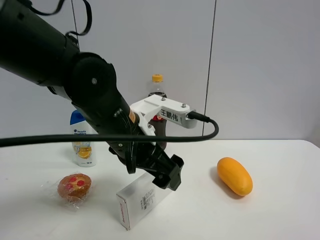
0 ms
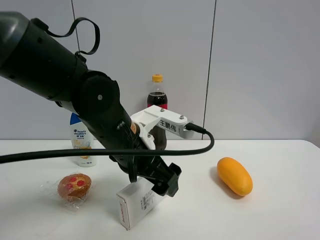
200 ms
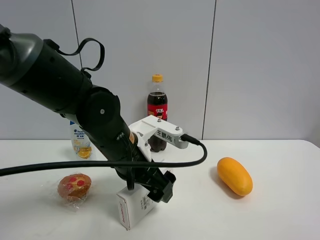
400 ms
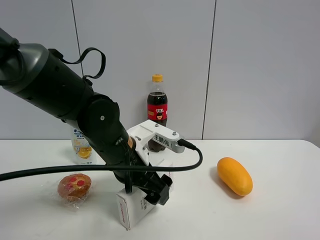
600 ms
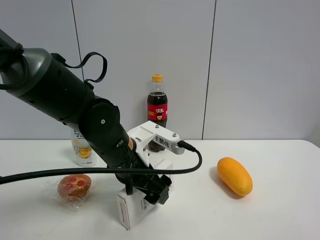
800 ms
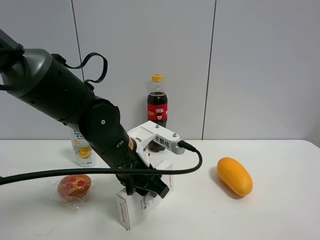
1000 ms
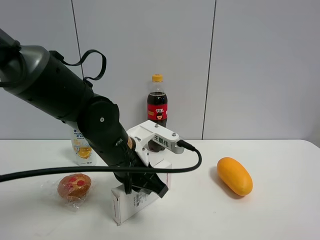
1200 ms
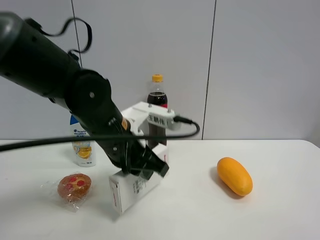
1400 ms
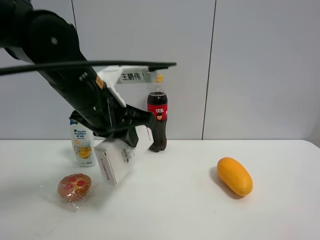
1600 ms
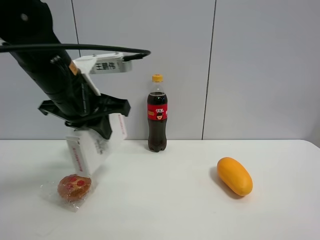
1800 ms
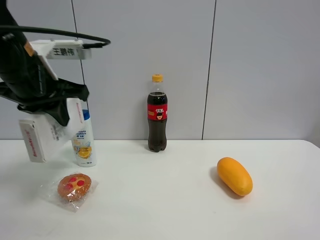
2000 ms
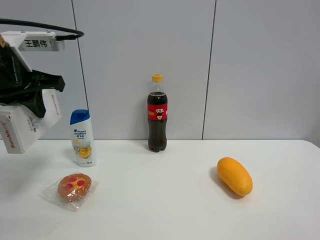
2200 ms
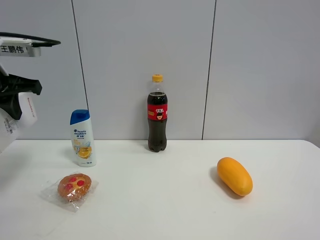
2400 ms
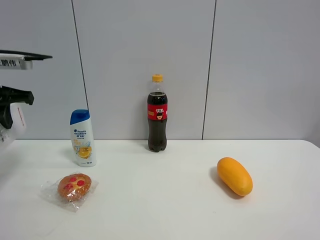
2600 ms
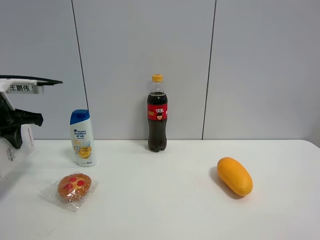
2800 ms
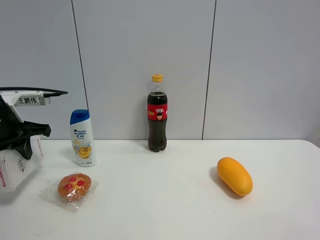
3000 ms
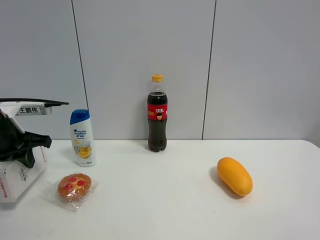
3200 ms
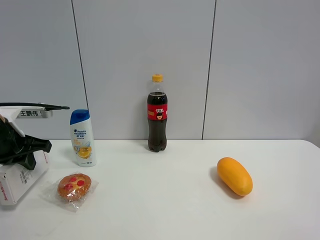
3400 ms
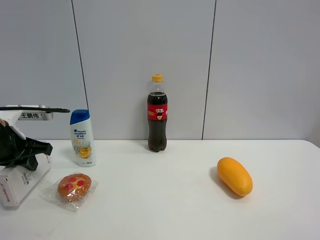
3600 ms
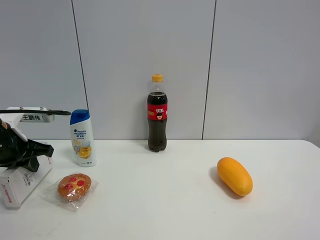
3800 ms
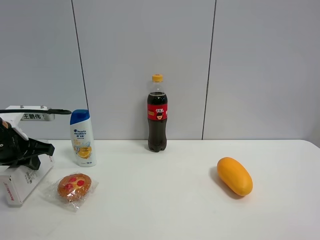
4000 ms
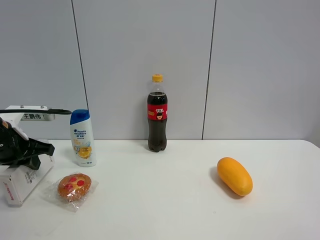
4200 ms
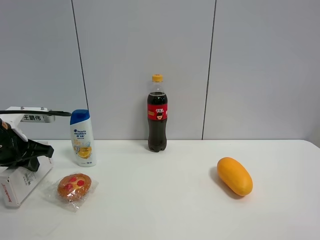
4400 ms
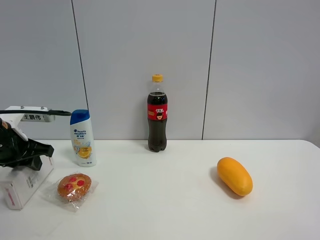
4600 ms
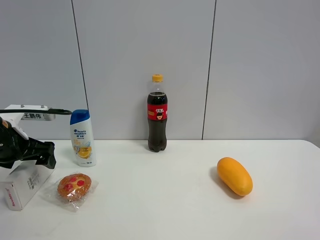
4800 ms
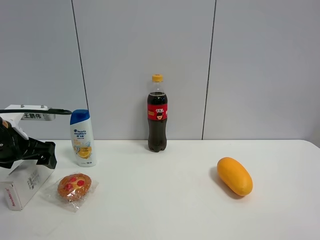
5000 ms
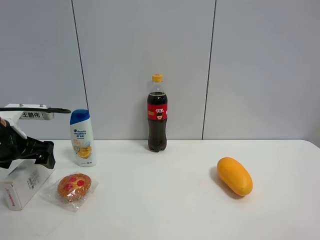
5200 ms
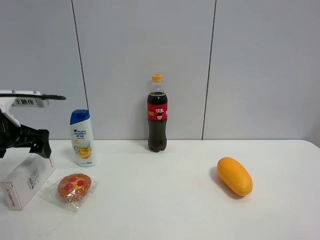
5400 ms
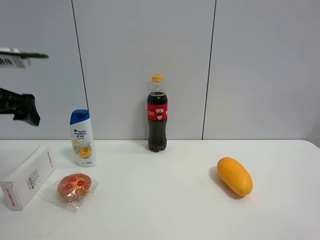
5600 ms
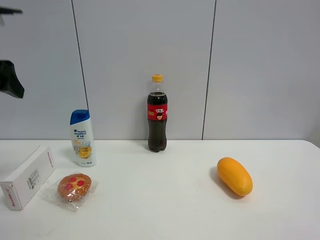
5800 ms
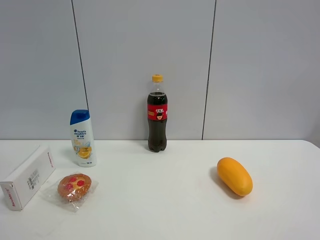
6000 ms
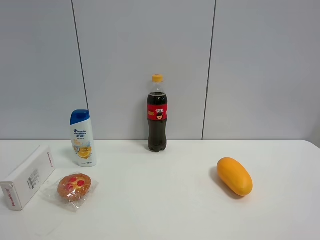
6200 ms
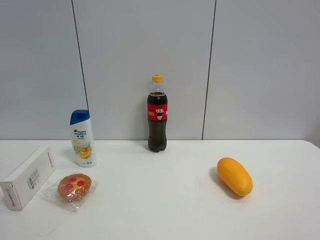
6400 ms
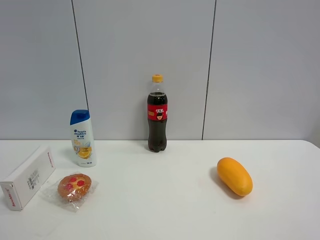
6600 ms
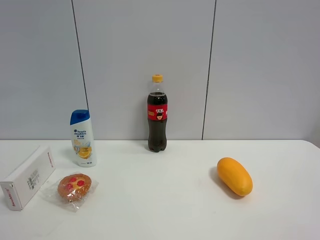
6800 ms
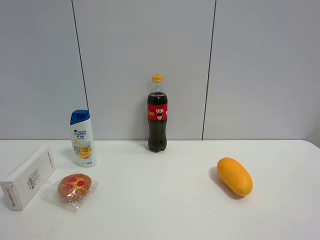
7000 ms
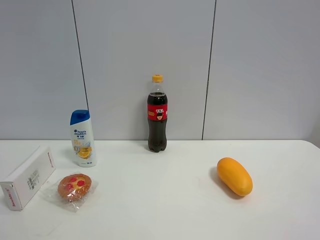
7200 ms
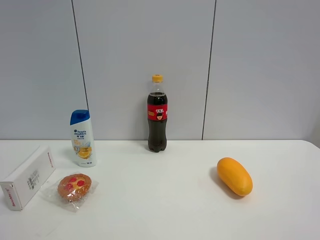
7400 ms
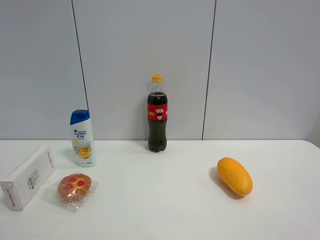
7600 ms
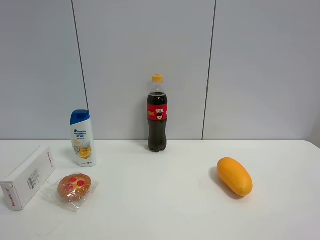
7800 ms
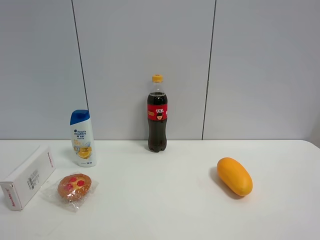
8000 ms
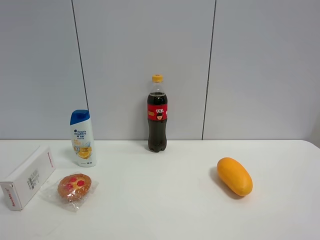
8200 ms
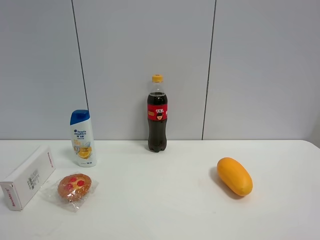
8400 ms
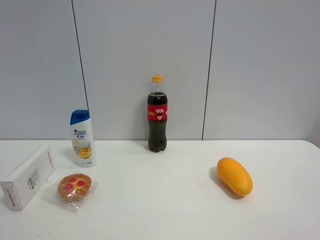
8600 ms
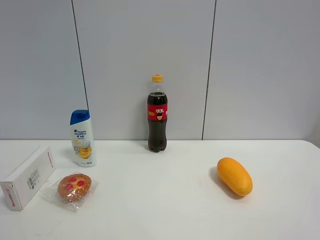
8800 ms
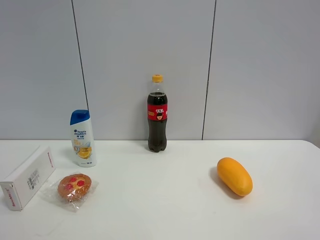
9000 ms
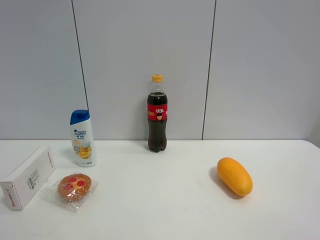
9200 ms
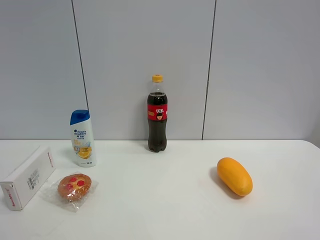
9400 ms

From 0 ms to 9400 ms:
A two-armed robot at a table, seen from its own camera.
Task of the whole recording: the gripper move the object.
Step, from 1200 ms to 4600 ms: Place the USB box on the table with the left gripper.
From 0 ms to 1600 ms: The left gripper heads upward and to the left, covering approximately 10 cm, and closes up.
From 1600 ms to 3200 ms: The left gripper goes roughly 20 cm to the left.
From 3200 ms to 4800 ms: The left gripper opens.
From 4800 ms to 6200 ms: The left gripper heads upward and backward, covering about 30 cm.

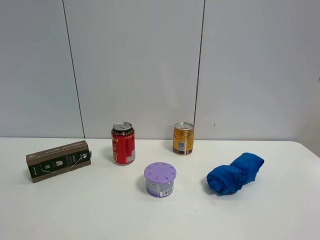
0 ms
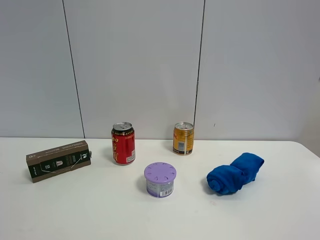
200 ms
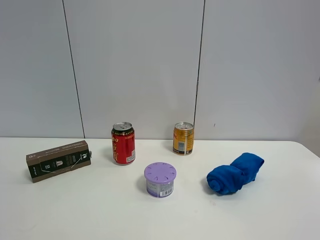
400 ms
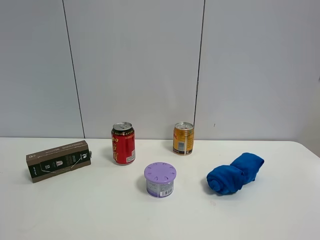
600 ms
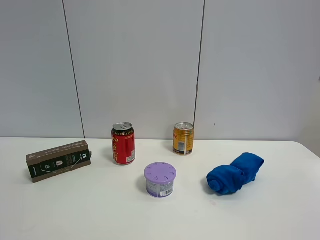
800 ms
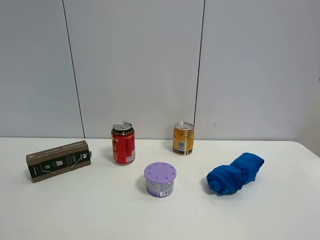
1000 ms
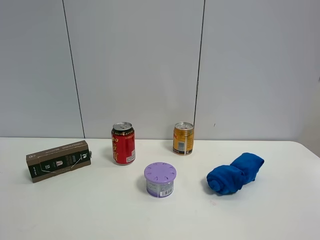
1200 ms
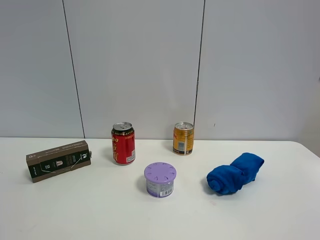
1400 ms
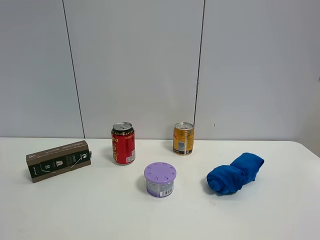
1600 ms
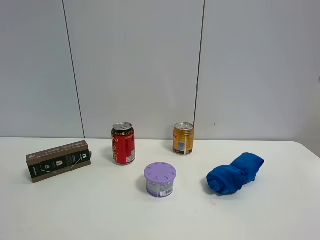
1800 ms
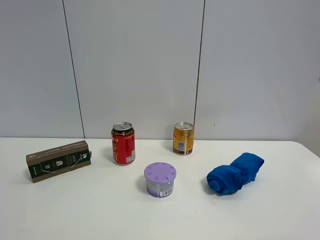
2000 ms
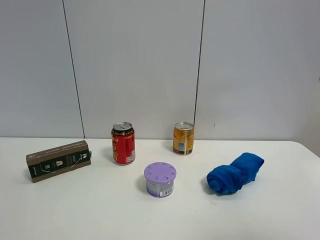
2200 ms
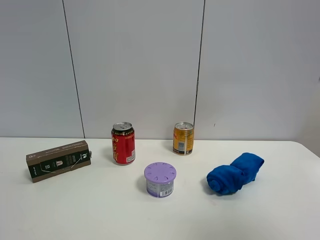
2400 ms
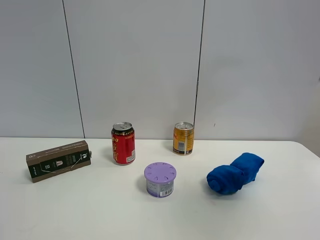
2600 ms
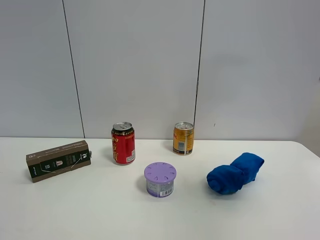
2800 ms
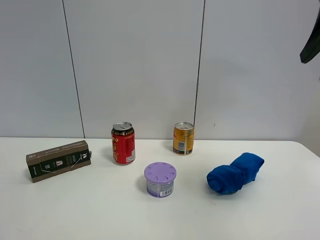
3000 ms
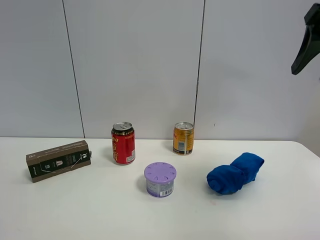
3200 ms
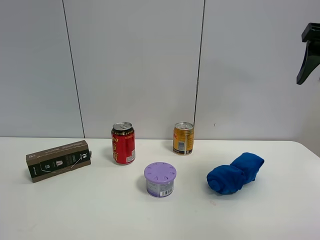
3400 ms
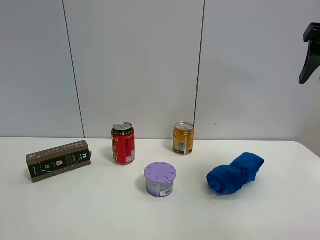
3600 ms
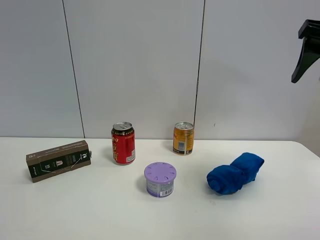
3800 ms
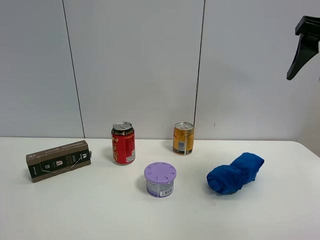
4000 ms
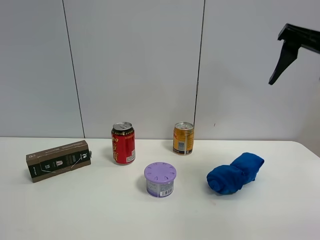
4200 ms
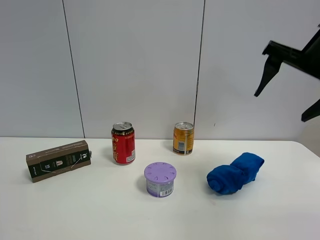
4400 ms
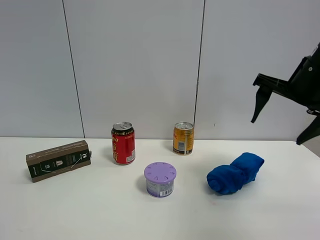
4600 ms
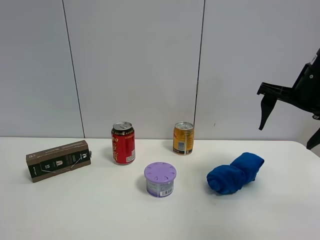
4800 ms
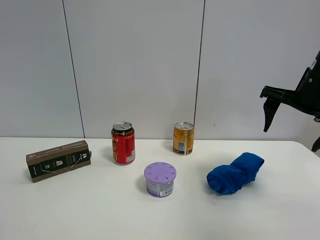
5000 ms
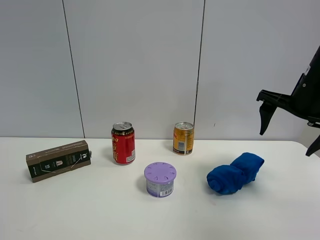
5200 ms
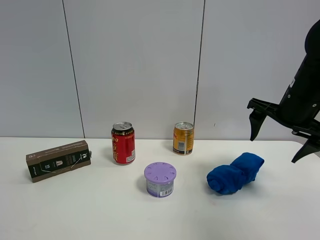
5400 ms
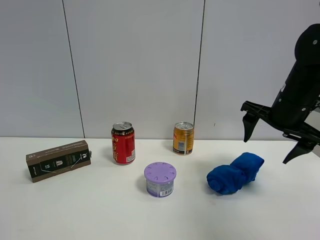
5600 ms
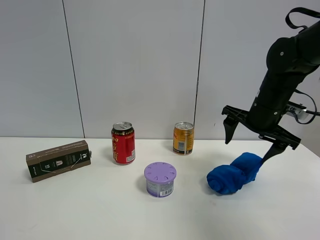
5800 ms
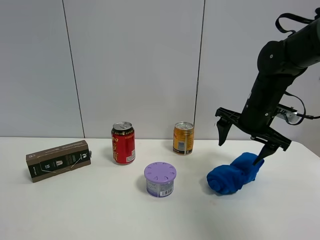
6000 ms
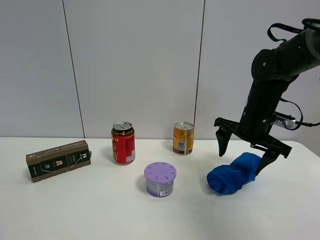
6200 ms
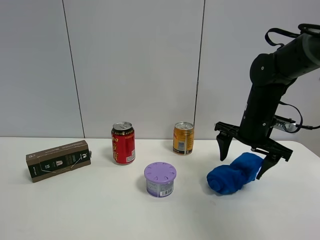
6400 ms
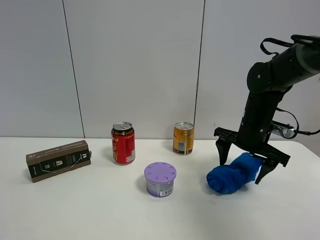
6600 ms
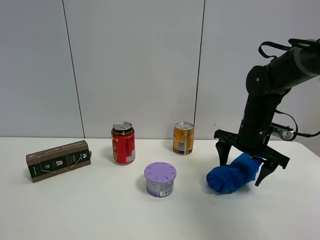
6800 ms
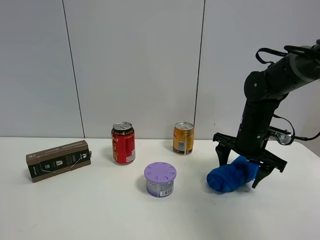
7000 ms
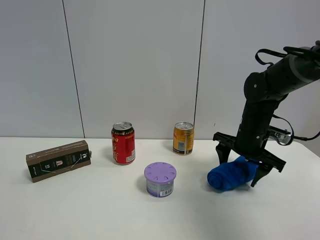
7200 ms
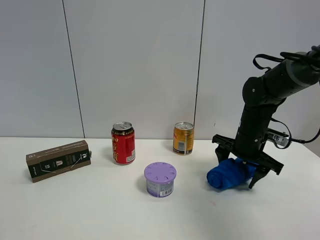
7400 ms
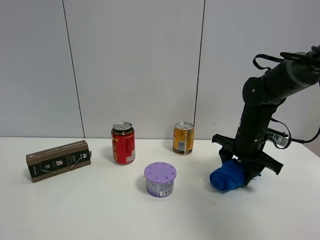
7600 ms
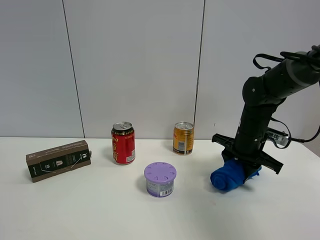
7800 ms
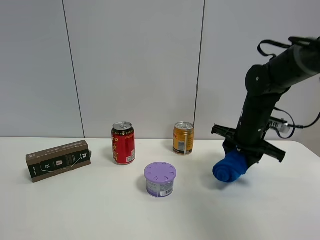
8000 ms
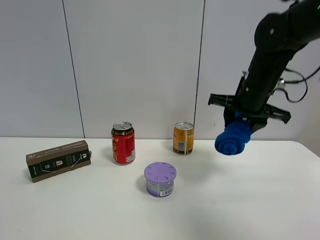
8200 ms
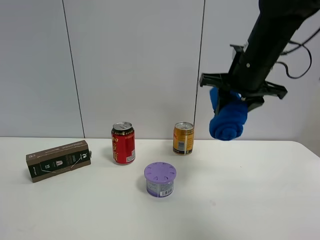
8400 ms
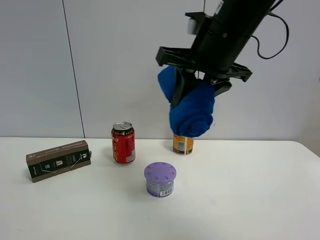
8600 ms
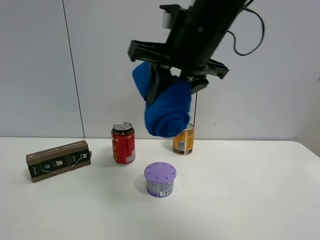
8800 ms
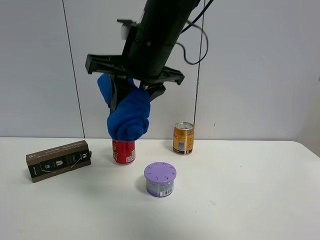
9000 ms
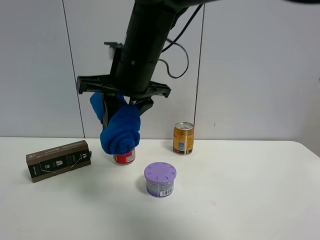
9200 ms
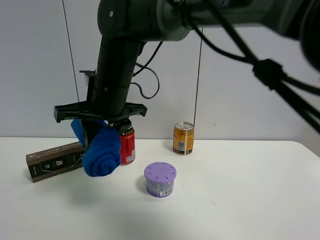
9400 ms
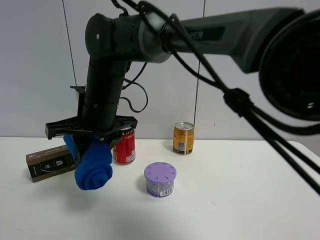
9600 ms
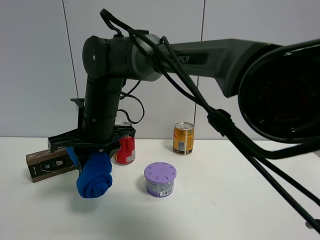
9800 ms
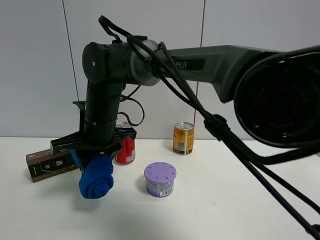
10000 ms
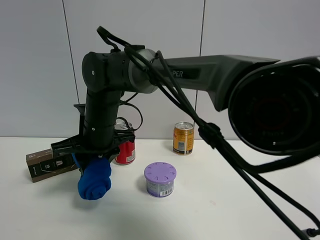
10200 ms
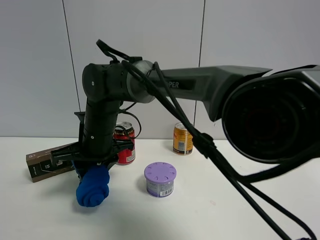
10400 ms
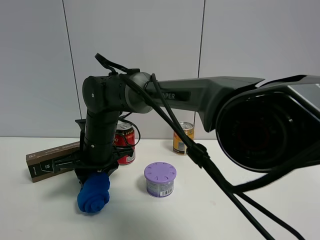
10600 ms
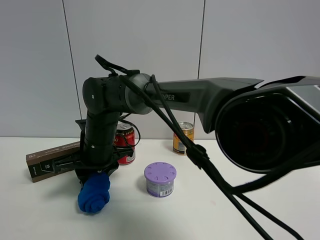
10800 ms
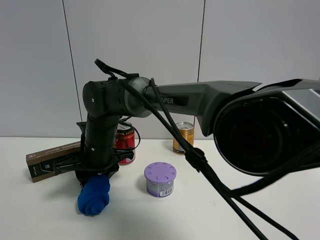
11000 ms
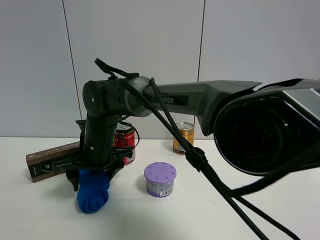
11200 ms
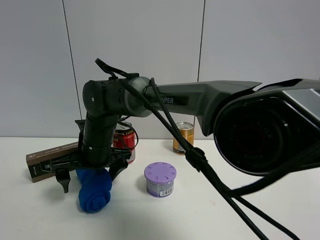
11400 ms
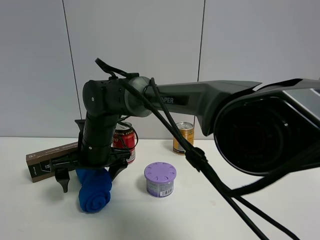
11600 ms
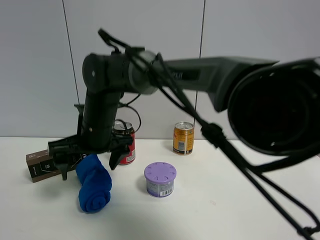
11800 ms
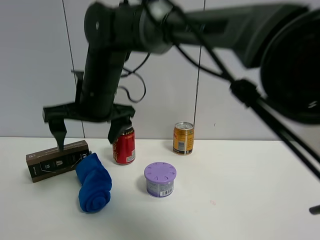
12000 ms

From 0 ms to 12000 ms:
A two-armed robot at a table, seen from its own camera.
Task of the whole recording: the gripper move the object.
Step, from 0 ms to 7600 ms: Grasp the blue towel with the right gripper.
Step, from 7800 ms to 11600 ms: Place the blue towel on the table with the right gripper.
From 0 ms to 1600 ms: Neither gripper changes place.
From 1600 ms to 3000 ms: The right gripper shifts about 25 cm forward and upward.
From 3000 ms to 4400 ms: The right gripper moves downward and forward, some 10 cm.
From 4400 ms to 6000 ms: The right gripper is displaced downward and forward by some 15 cm.
From 6000 ms to 7600 ms: The right gripper is displaced downward by approximately 5 cm, and closes up.
From 7600 ms to 9000 ms: The right gripper shifts some 30 cm to the left, upward and backward.
From 9000 ms to 10400 ms: The right gripper travels downward and to the left by roughly 20 cm.
From 10400 ms to 12000 ms: The right gripper is displaced upward by approximately 10 cm, and opens its fingers.

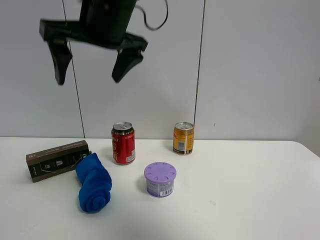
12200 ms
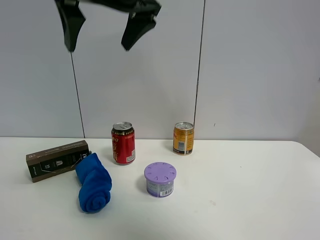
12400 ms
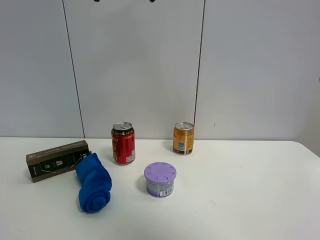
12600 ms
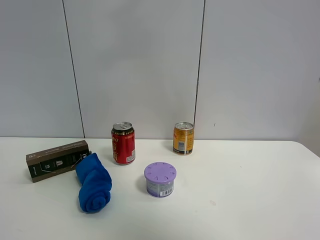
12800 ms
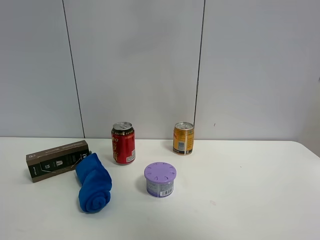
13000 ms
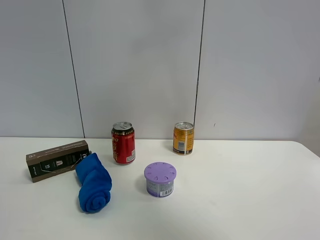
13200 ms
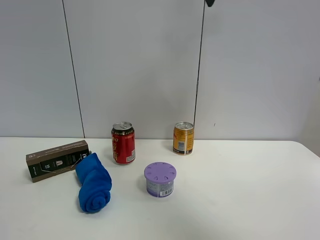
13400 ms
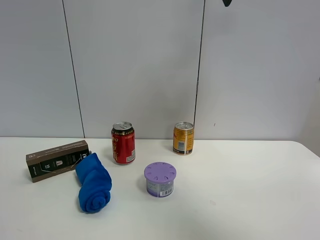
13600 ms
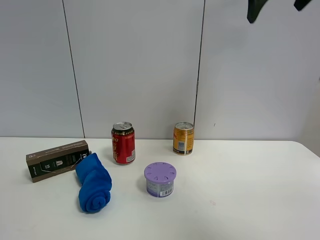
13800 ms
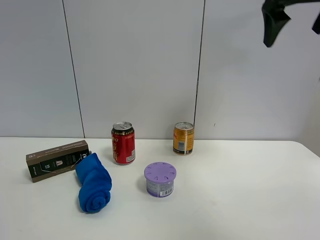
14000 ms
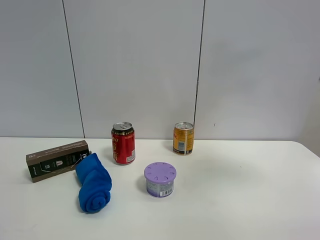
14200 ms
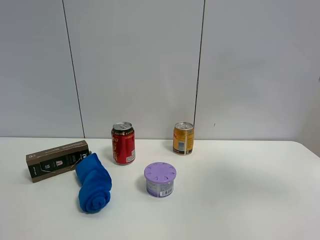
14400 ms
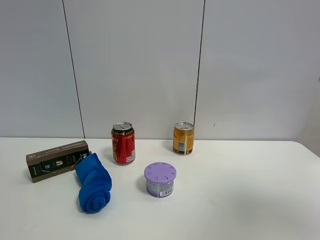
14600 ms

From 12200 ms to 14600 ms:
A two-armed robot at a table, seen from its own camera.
Task of the whole recording: the gripper move the object.
From 12200 ms to 13400 ms: The right gripper shifts approximately 25 cm to the right and upward.
From 13400 ms to 14600 ms: The right gripper moves backward and to the right, about 30 cm.
